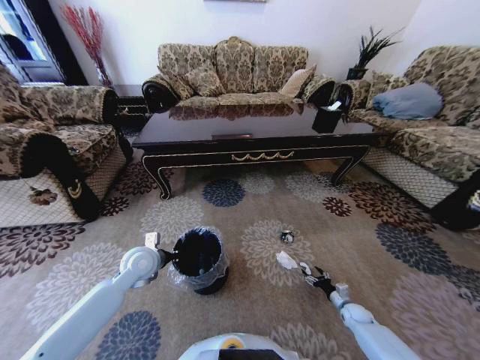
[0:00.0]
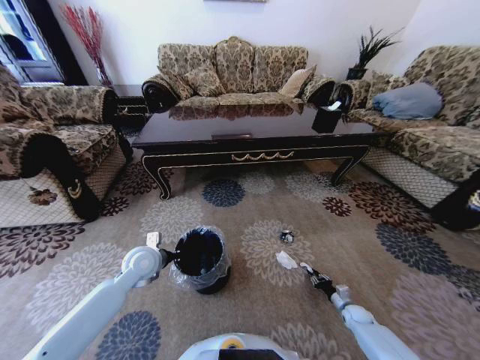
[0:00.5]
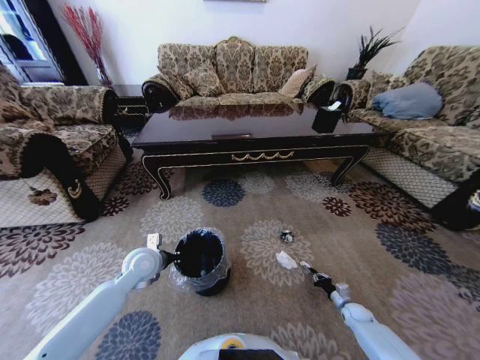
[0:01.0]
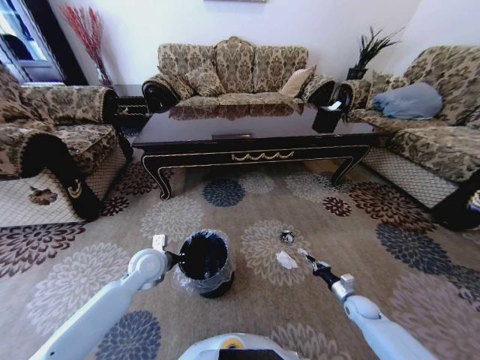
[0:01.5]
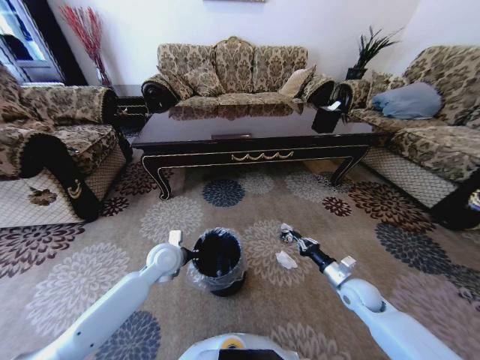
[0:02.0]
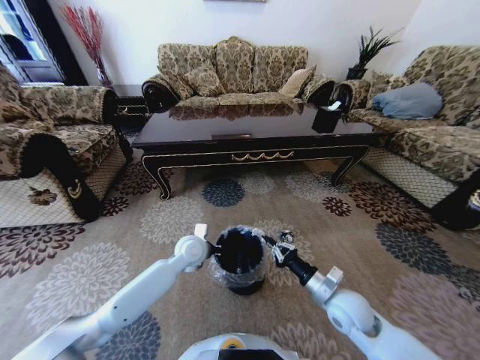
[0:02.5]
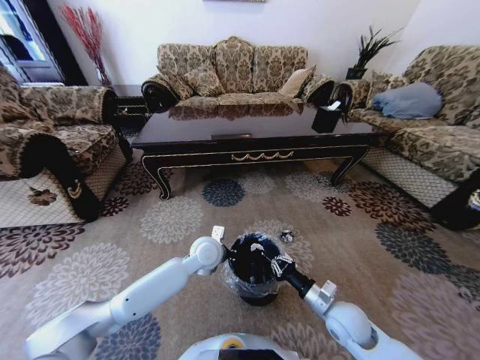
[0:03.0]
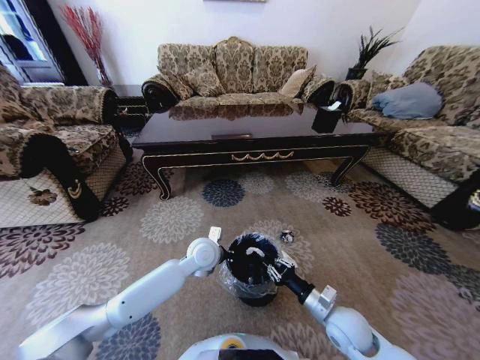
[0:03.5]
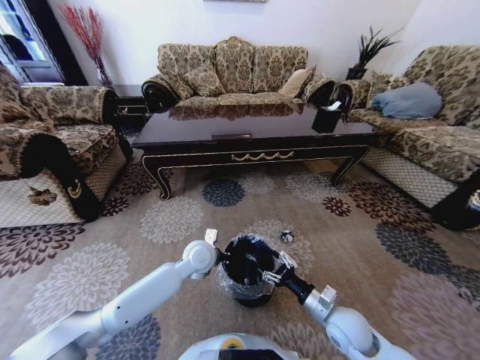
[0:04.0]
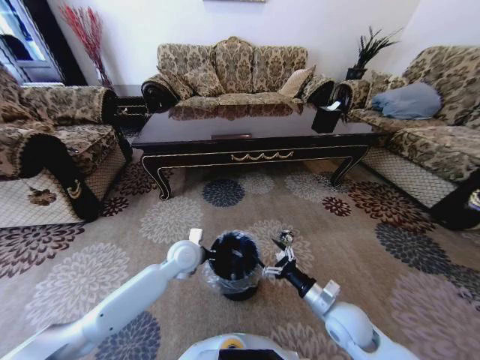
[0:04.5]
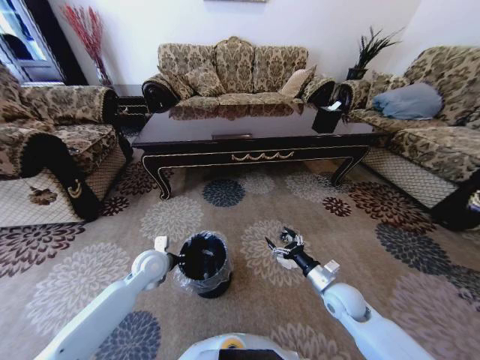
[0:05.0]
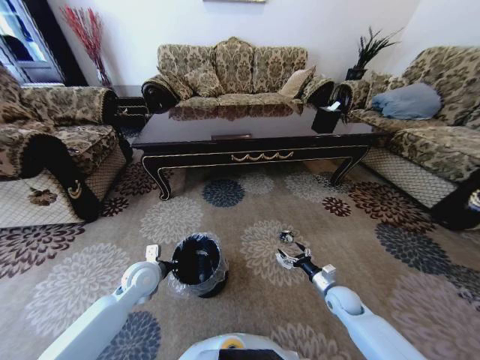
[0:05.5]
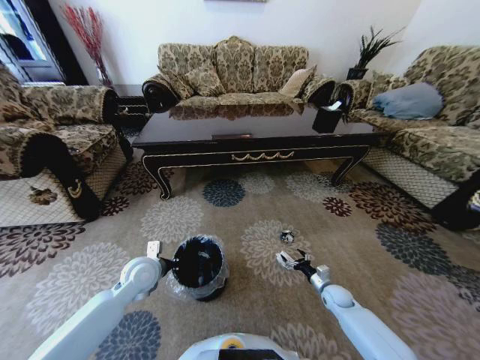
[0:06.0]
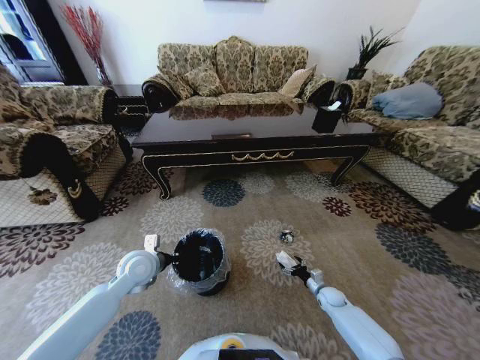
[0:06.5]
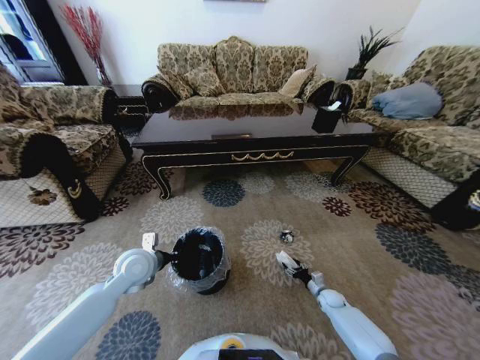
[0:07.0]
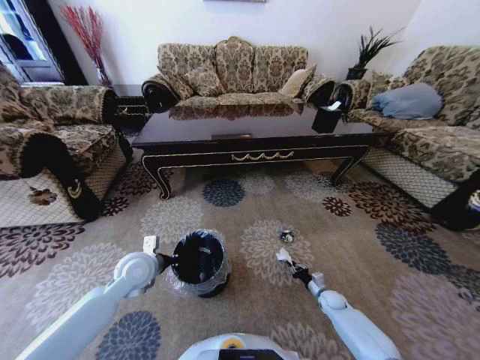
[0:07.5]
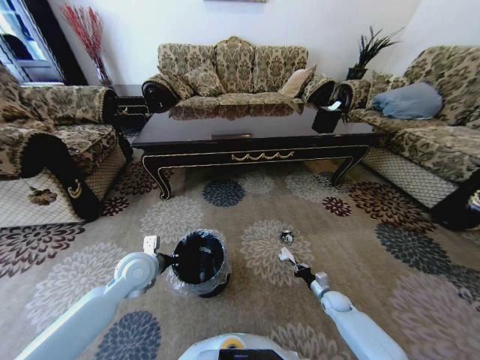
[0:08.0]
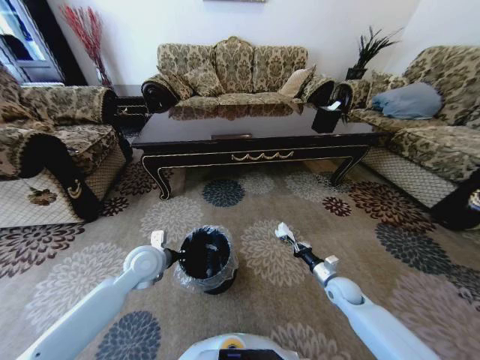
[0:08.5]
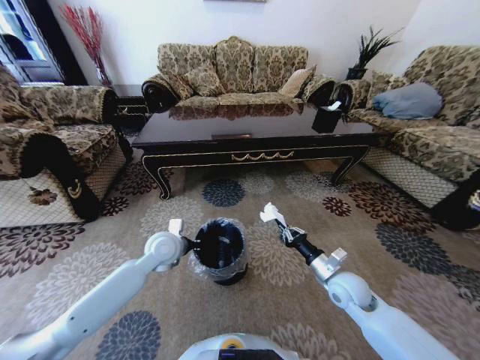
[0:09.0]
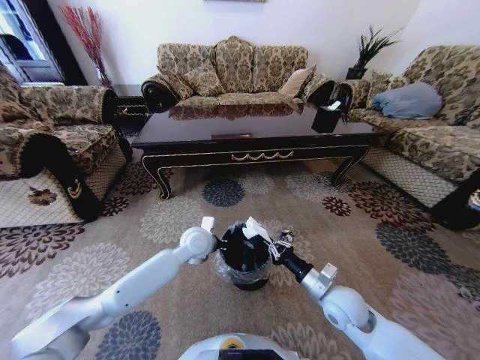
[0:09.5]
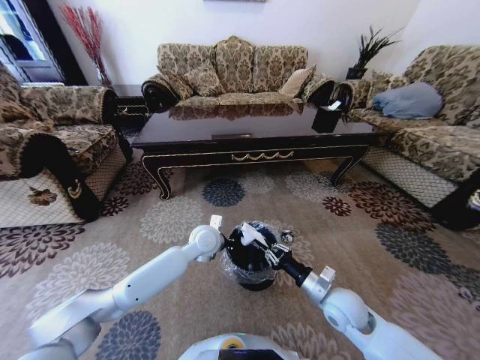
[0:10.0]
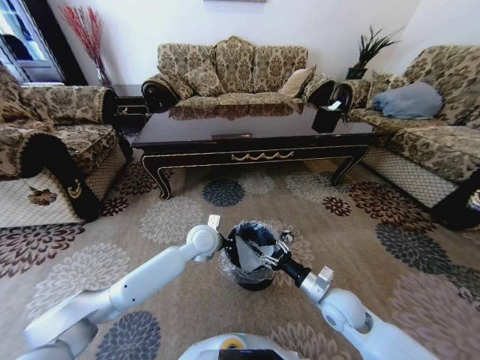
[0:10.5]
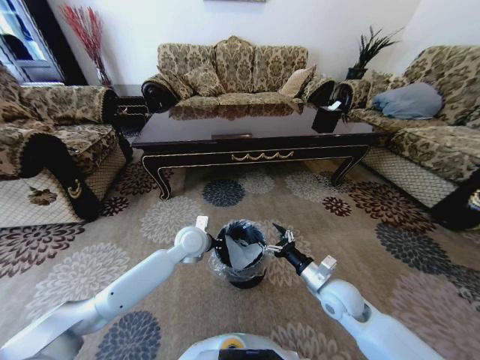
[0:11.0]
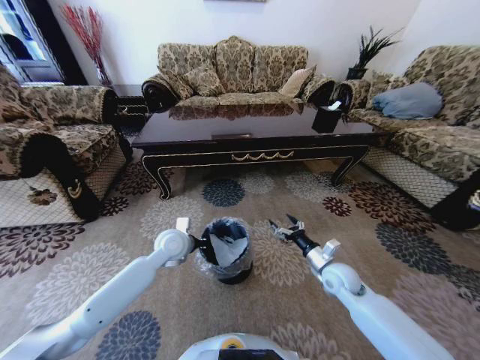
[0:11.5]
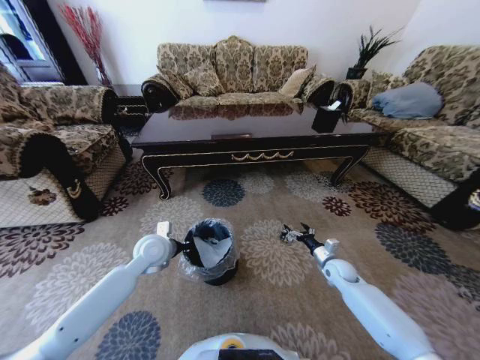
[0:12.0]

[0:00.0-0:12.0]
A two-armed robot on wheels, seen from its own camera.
Task of the whole recording: Move to the front of the table and pick up the trash from the floor, then place it into the trash bin.
0:00.0 to 0:02.0: The right gripper moves upward and to the left, approximately 20 cm, and closes up, while the left gripper travels to the right by roughly 5 cm.
0:02.0 to 0:04.0: The left gripper moves to the right, about 10 cm; the right gripper shifts approximately 15 cm to the left and backward, and opens up.
0:04.0 to 0:06.0: The left gripper heads to the left, covering approximately 15 cm; the right gripper is displaced downward, forward and to the right by roughly 25 cm.
0:06.0 to 0:08.0: The right gripper closes up.
0:08.0 to 0:10.0: The left gripper travels to the right and forward by about 20 cm. Meanwhile the right gripper goes roughly 25 cm upward and to the left.
0:10.0 to 0:12.0: The left gripper is displaced to the left by about 15 cm. The right gripper is displaced forward, to the right and downward by approximately 20 cm, and opens its fingers.

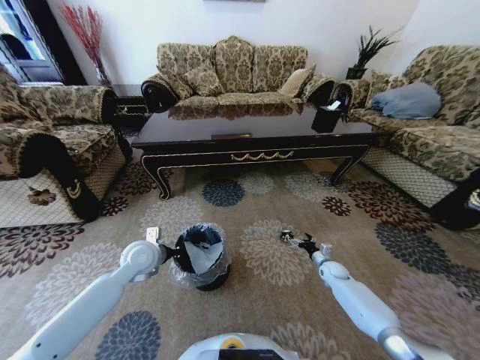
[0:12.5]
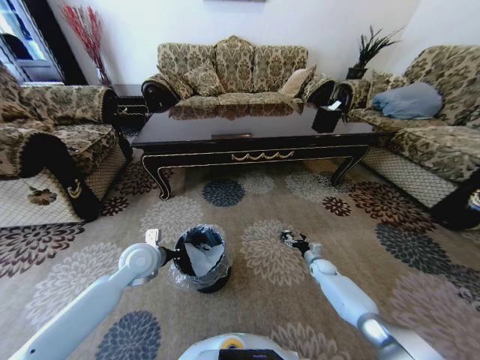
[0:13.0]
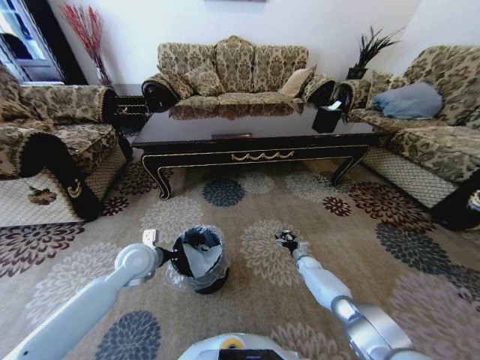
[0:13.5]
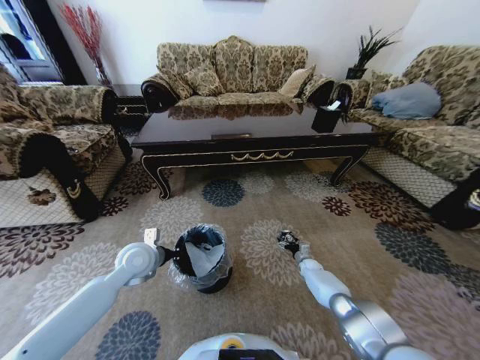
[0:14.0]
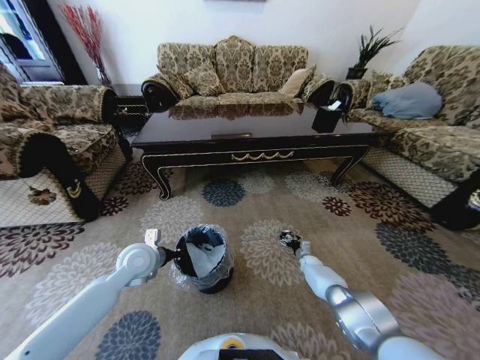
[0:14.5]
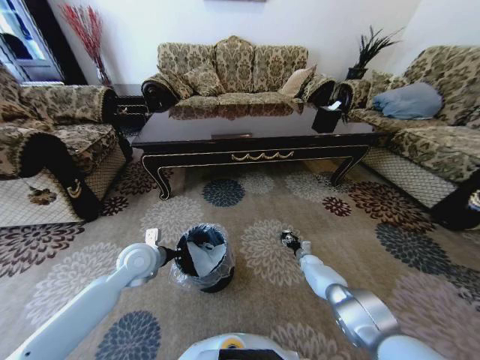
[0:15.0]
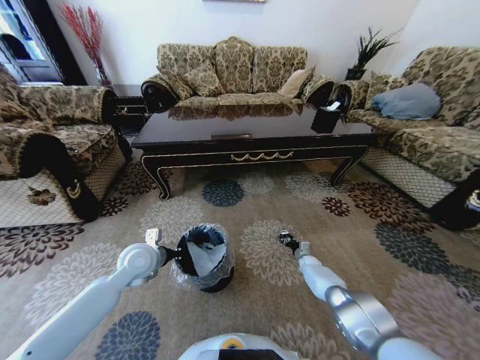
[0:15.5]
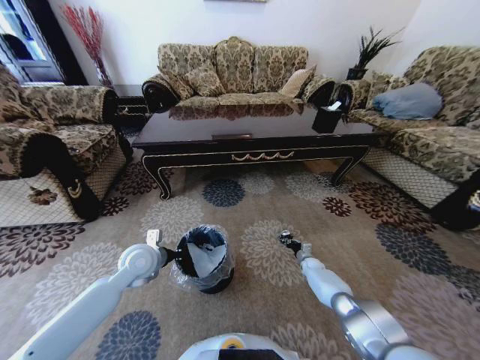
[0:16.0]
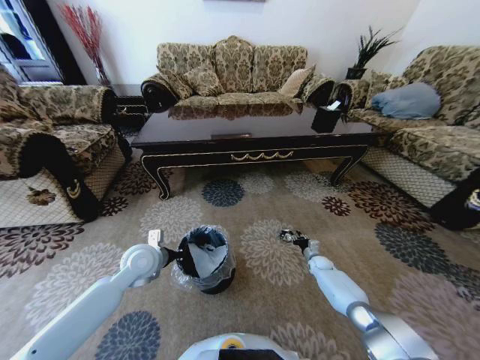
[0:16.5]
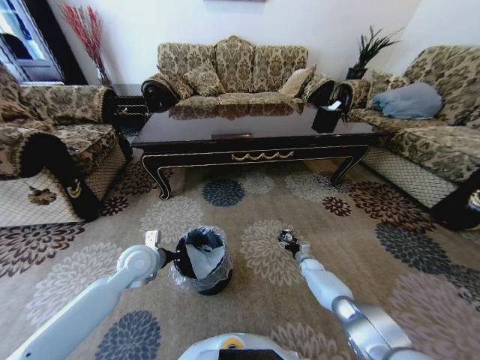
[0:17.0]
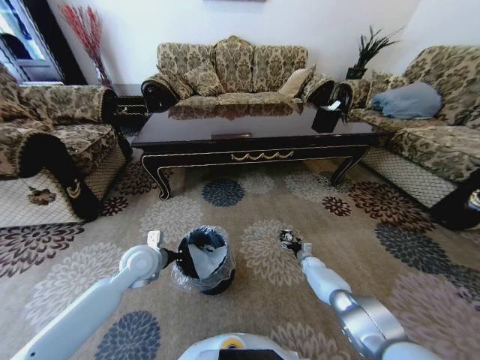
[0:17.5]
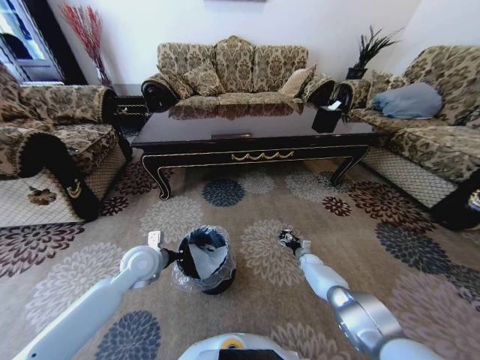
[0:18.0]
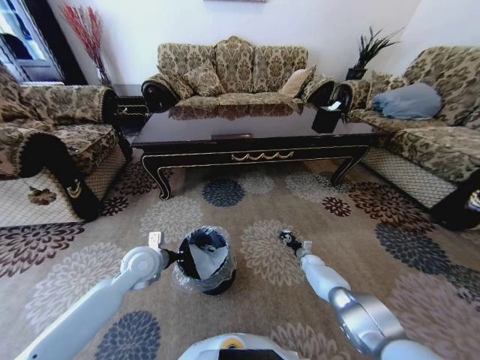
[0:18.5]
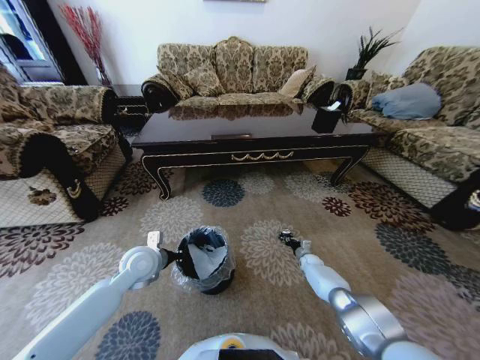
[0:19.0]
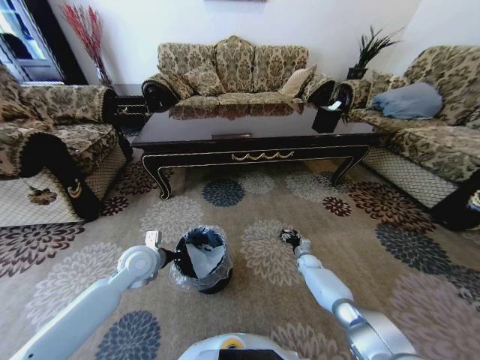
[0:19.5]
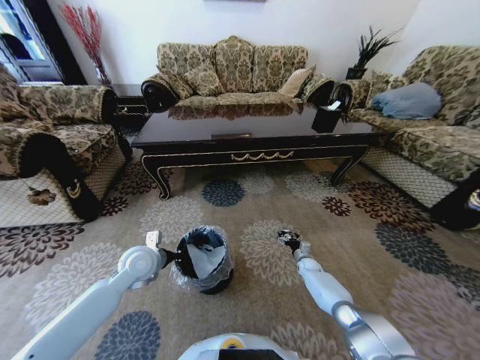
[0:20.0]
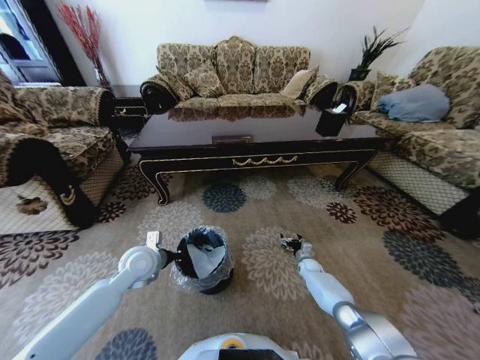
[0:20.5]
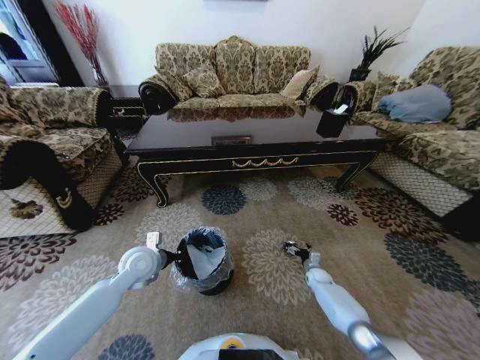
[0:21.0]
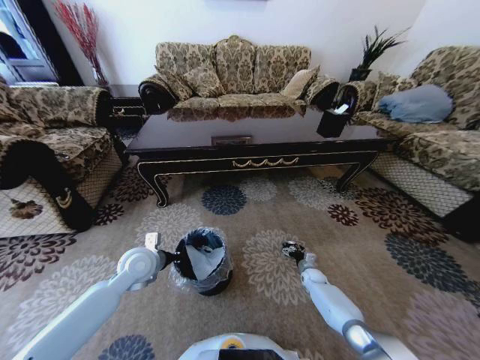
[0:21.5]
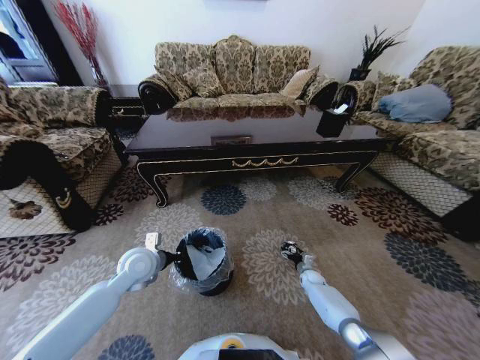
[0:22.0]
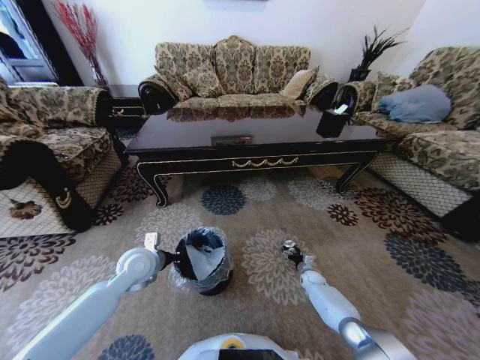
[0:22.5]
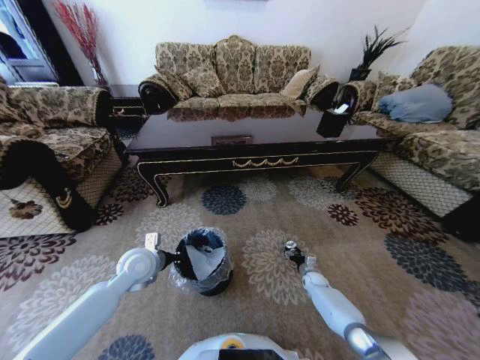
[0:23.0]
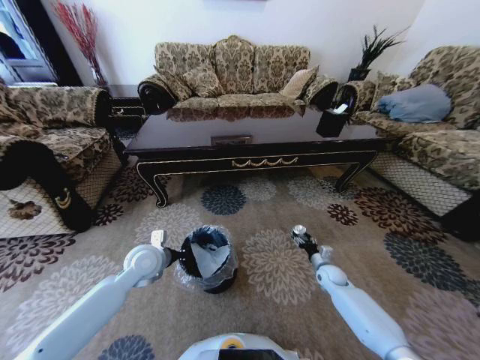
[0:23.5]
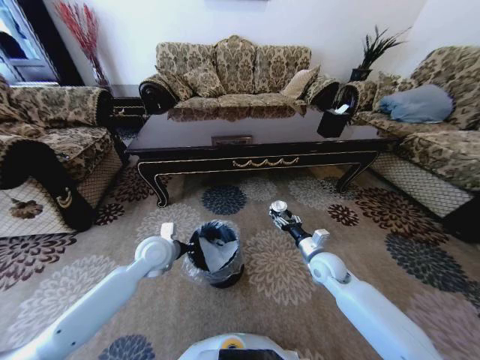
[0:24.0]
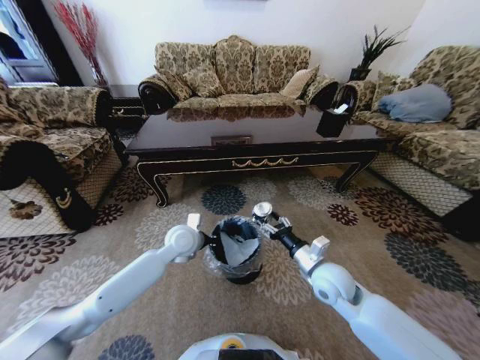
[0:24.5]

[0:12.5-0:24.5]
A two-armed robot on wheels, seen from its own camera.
Task of the whole recording: Move to the front of the table and pick up the trash from the floor, then place it into the trash bin.
0:12.5 to 0:14.5: The right gripper goes approximately 10 cm downward and forward.
0:14.5 to 0:16.5: The right gripper closes its fingers.
0:16.5 to 0:18.5: The right gripper opens, then closes once more.
0:18.5 to 0:20.5: The right gripper opens its fingers.
0:20.5 to 0:22.5: The right gripper ends up some 5 cm from where it was.
0:22.5 to 0:24.5: The right gripper is displaced upward by some 30 cm; the left gripper goes approximately 15 cm to the right and forward.

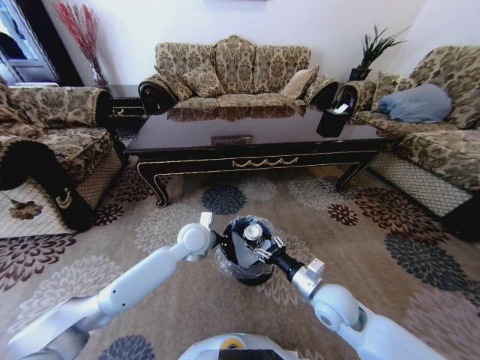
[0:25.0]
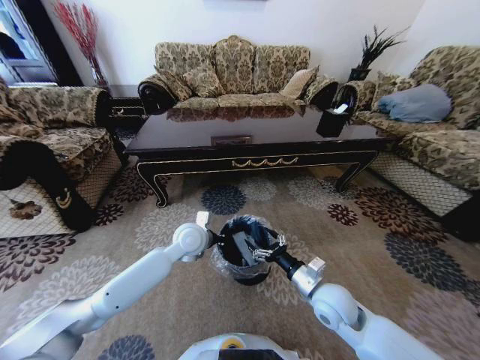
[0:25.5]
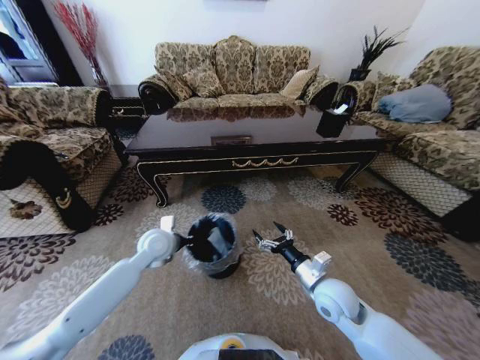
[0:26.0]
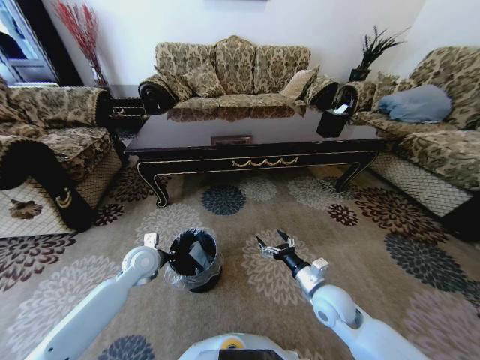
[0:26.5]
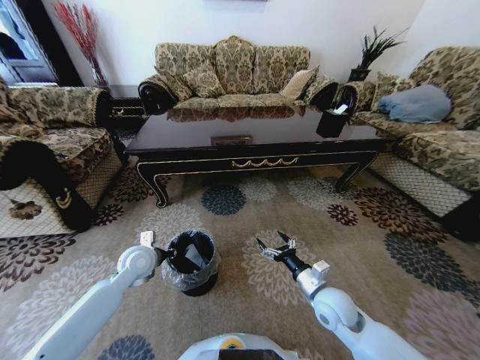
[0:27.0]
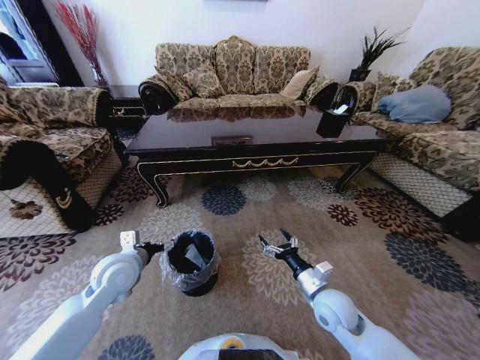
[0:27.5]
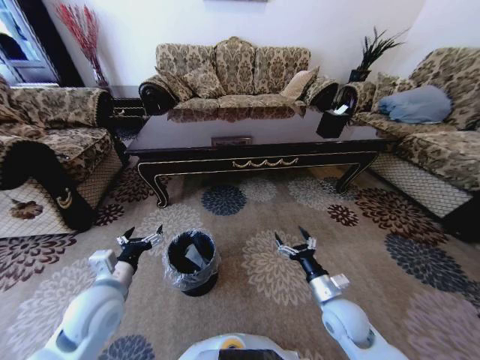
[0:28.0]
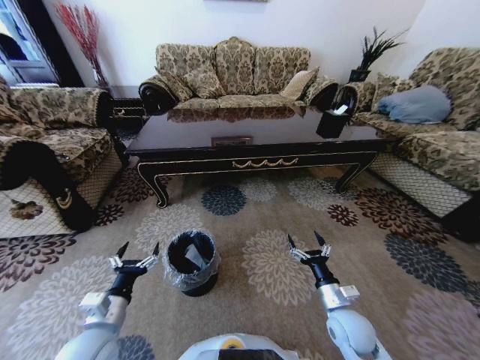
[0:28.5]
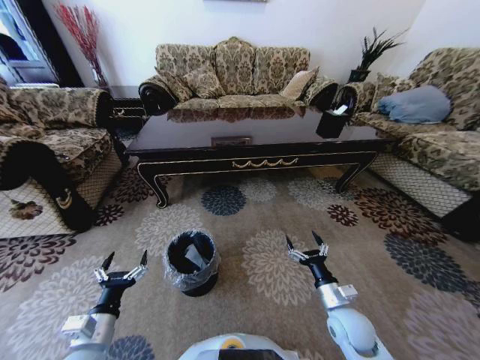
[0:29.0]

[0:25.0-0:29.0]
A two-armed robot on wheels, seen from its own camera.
Task of the whole recording: Move to the front of the table and pick up the trash from the floor, then place it into the trash bin.
0:25.0 to 0:27.0: The left gripper goes about 15 cm to the left, and opens.
0:27.0 to 0:29.0: The left gripper shifts roughly 20 cm backward, and opens. Meanwhile the right gripper moves roughly 5 cm.
